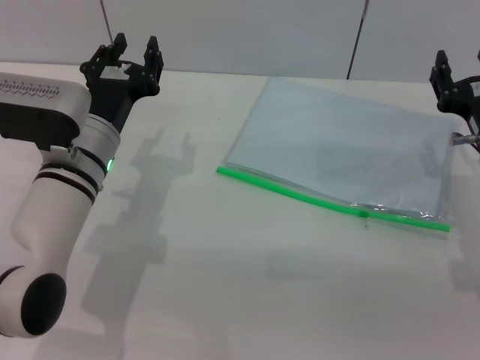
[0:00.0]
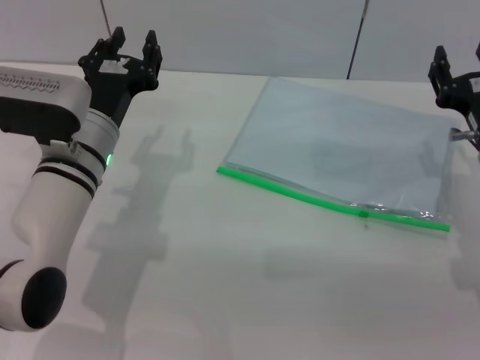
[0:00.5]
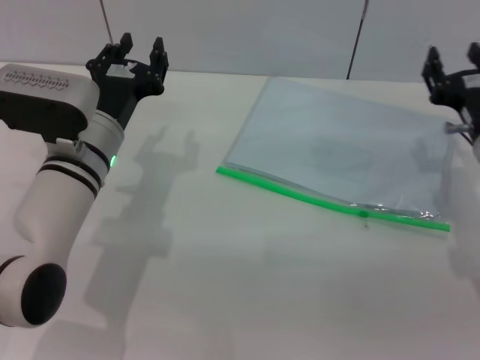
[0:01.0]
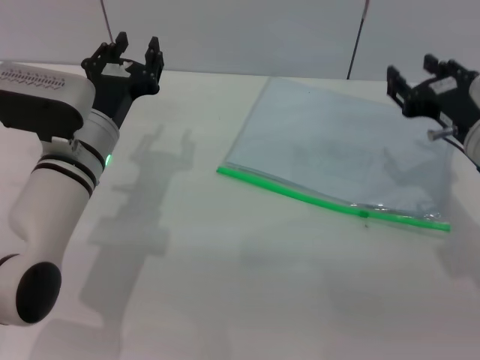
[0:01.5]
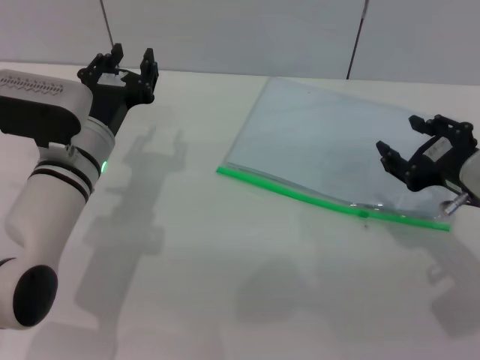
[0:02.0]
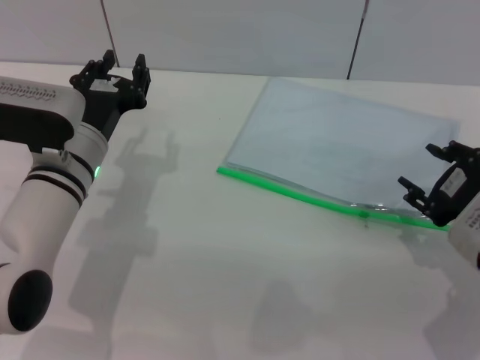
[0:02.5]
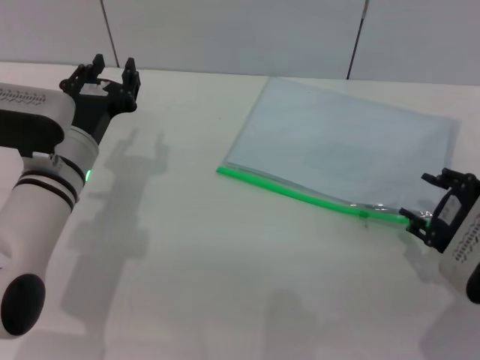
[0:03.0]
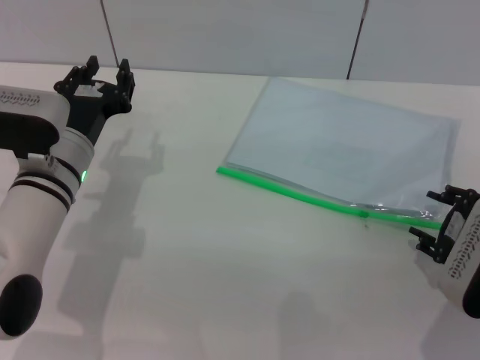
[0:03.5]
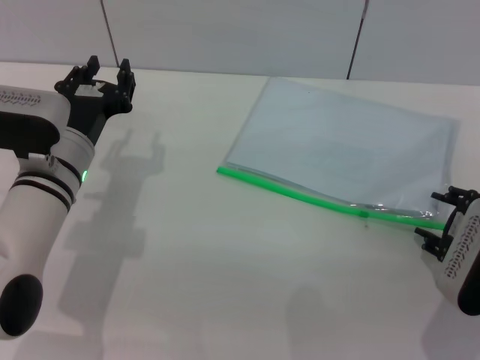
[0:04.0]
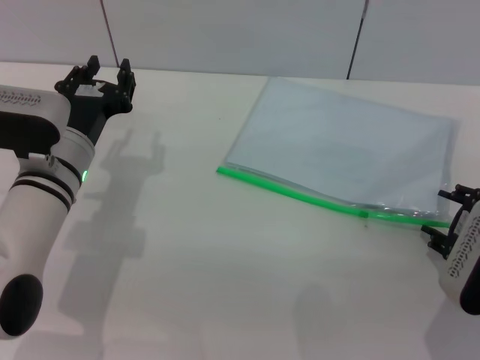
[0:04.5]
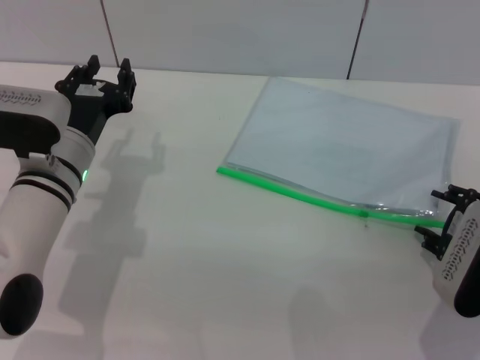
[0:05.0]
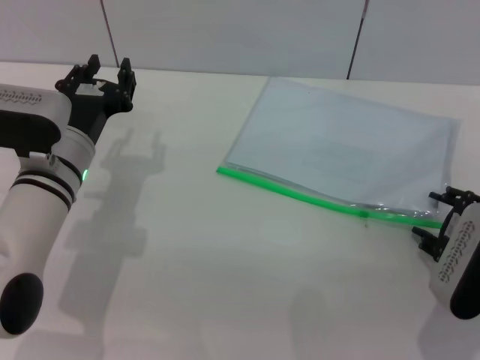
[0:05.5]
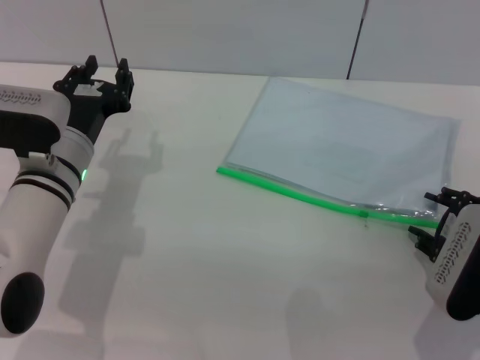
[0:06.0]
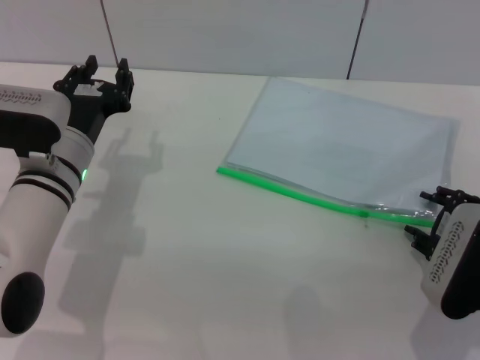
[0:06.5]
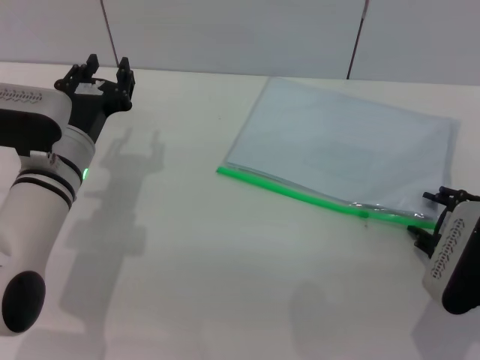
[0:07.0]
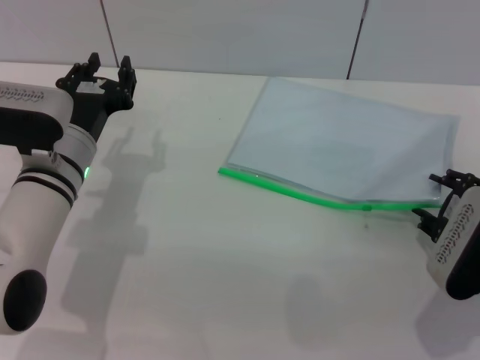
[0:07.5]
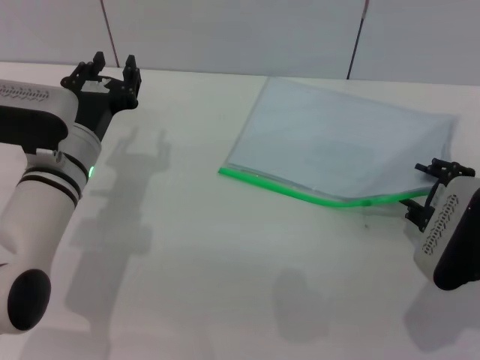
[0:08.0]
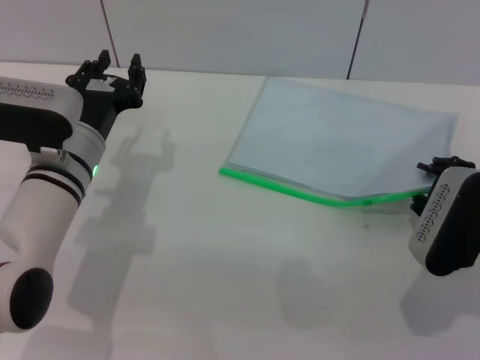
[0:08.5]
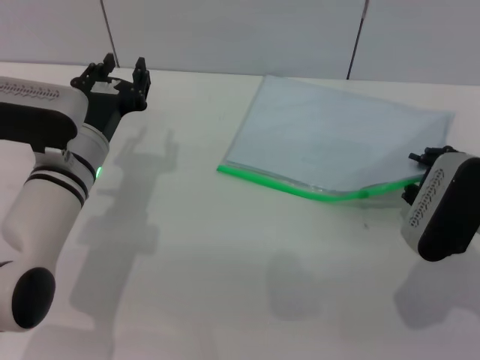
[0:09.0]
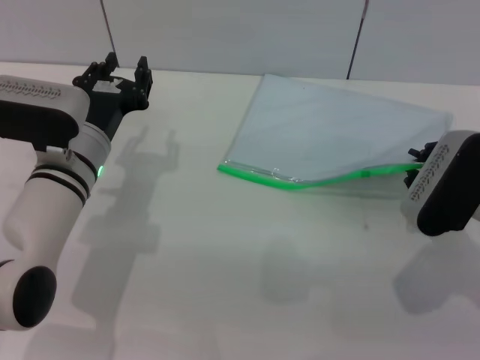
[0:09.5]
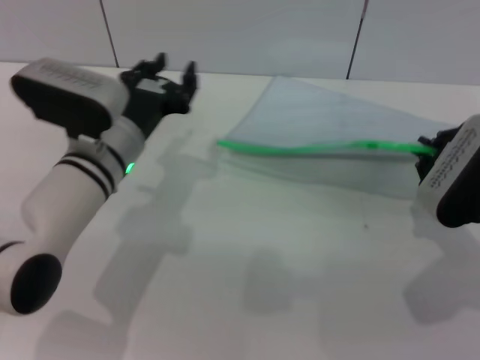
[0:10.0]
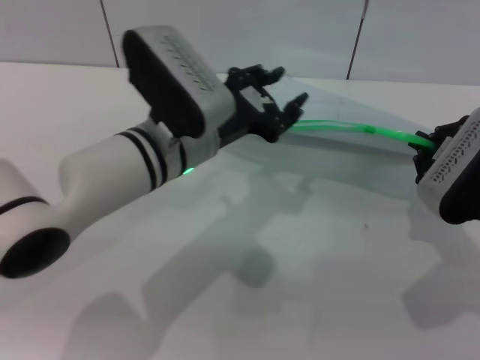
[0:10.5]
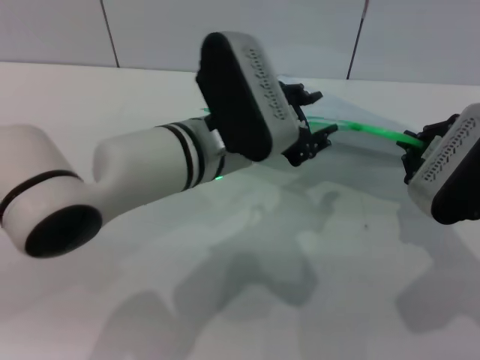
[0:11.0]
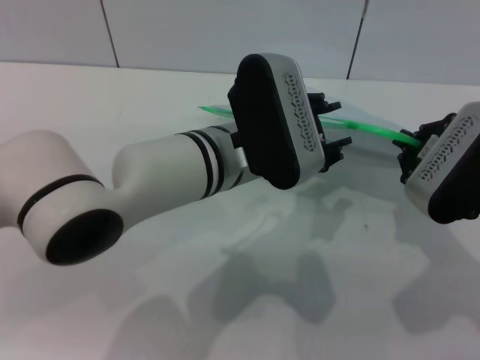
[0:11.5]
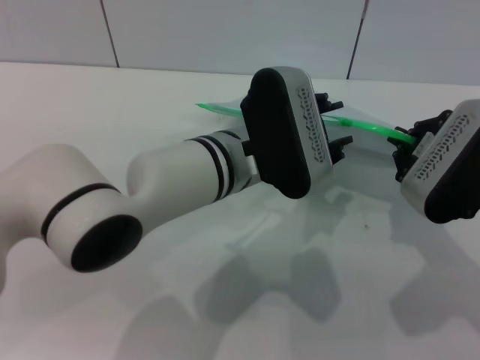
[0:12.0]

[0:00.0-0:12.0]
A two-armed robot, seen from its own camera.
Step, 0:00.0 to 0:09.5: Pick up the transparent plastic bag with the right gripper.
0:00.0 to 0:02.0: The right gripper moves approximately 5 cm.
0:04.0 to 0:06.0: Both grippers stay about where they are.
0:06.0 to 0:08.0: The grippers stay close to where they were, moving slightly.
0:08.0 to 0:10.0: The right gripper closes.
0:10.0 to 0:12.0: The left gripper heads to the right and upward, covering roughly 15 cm.

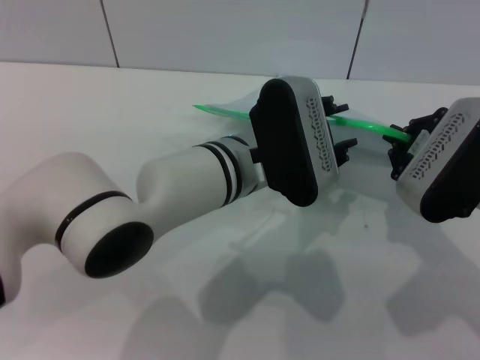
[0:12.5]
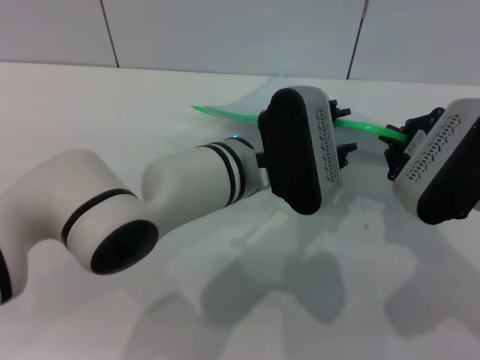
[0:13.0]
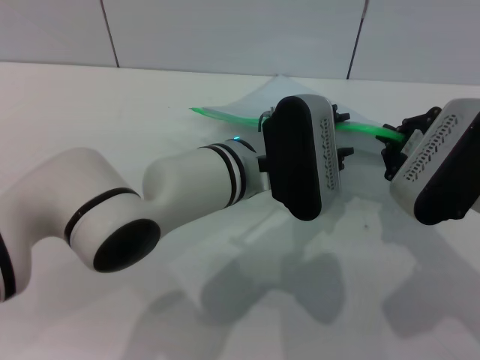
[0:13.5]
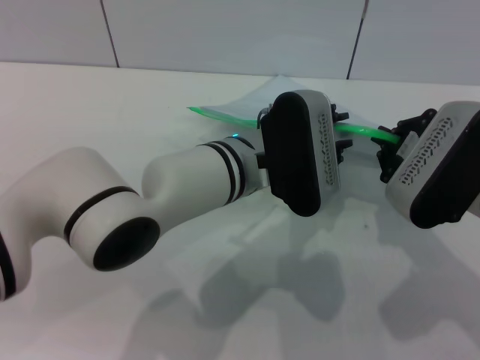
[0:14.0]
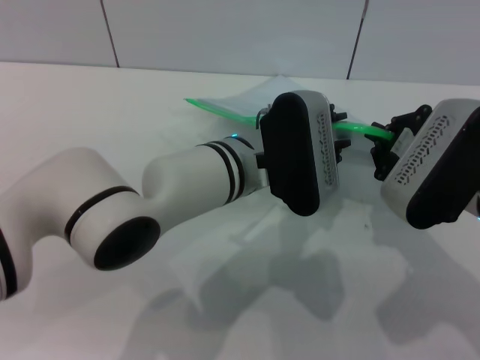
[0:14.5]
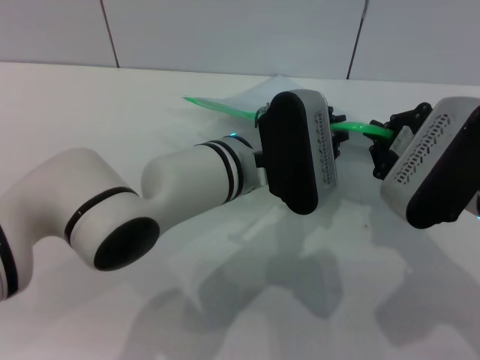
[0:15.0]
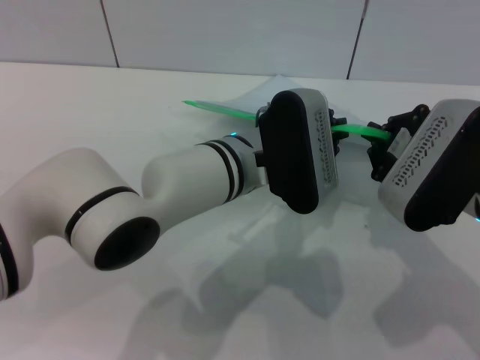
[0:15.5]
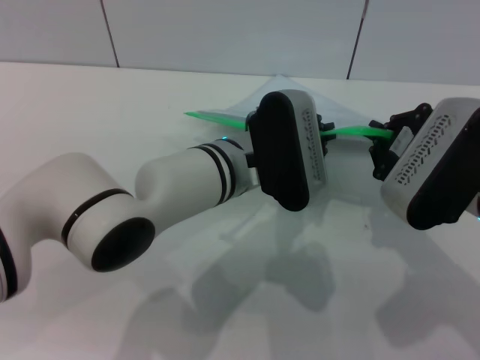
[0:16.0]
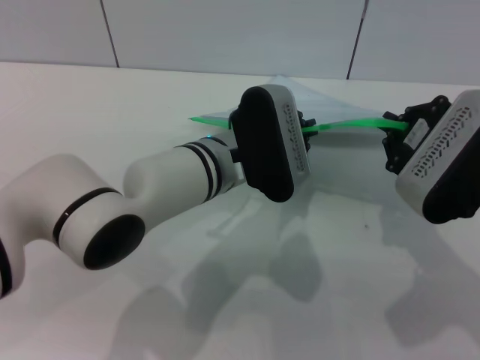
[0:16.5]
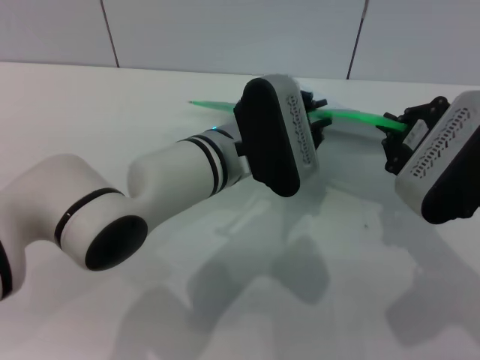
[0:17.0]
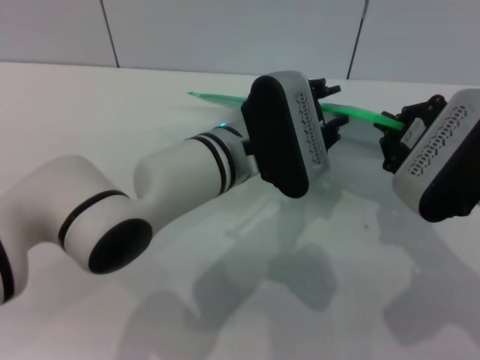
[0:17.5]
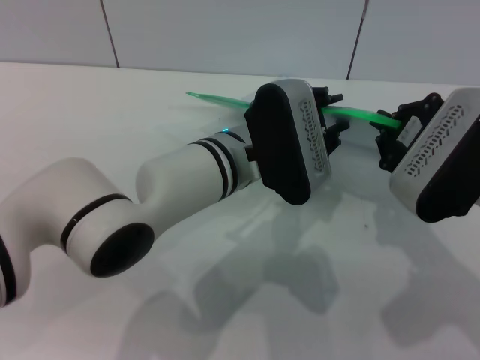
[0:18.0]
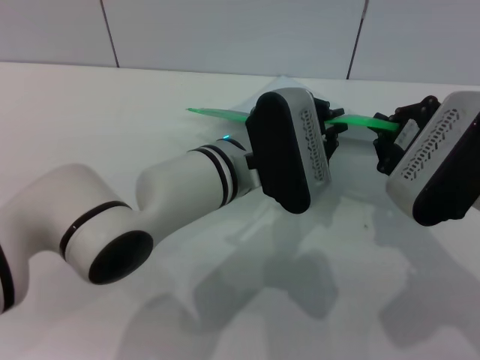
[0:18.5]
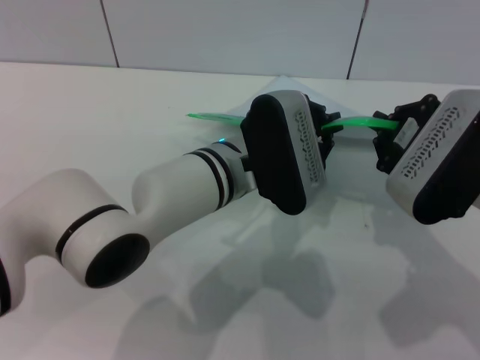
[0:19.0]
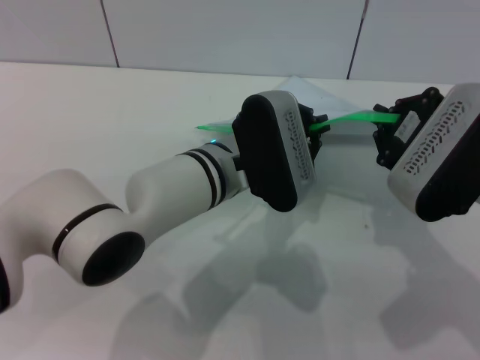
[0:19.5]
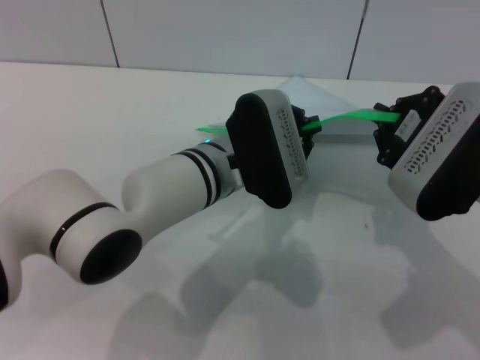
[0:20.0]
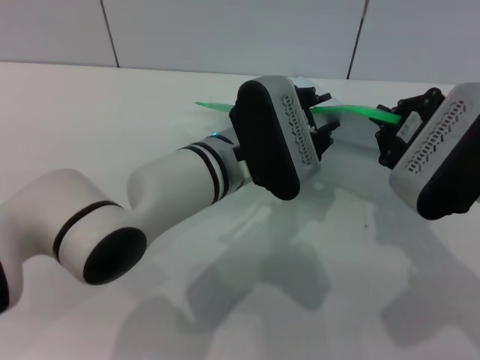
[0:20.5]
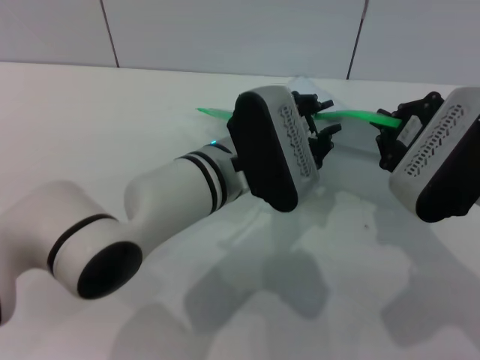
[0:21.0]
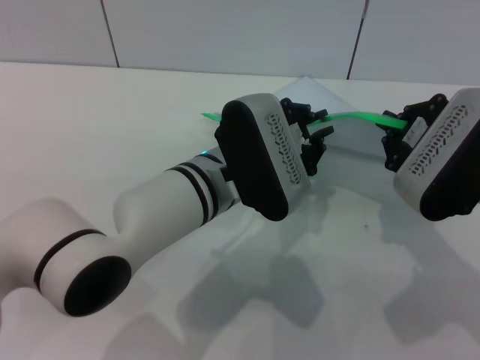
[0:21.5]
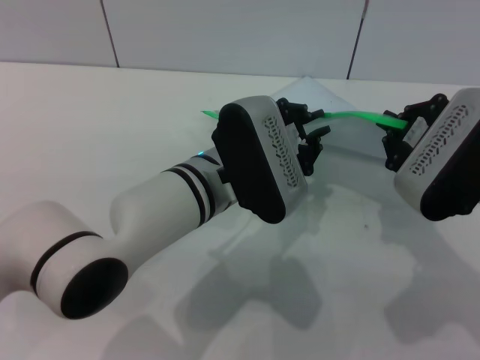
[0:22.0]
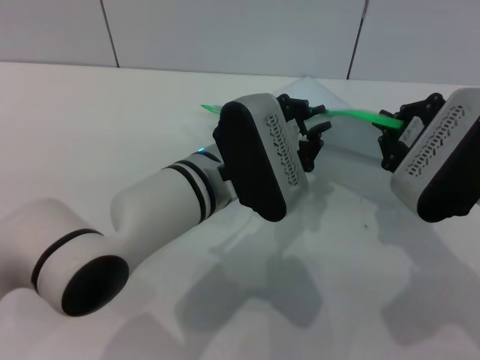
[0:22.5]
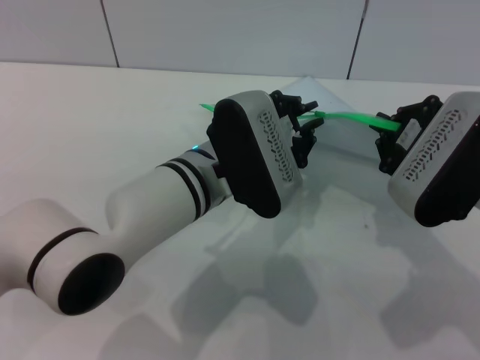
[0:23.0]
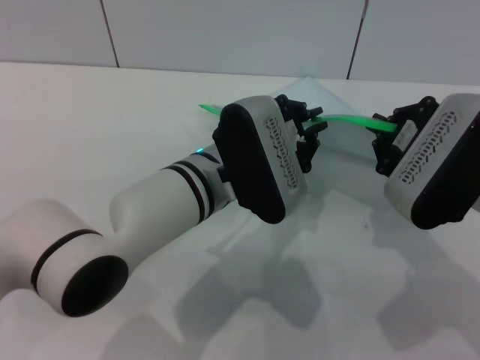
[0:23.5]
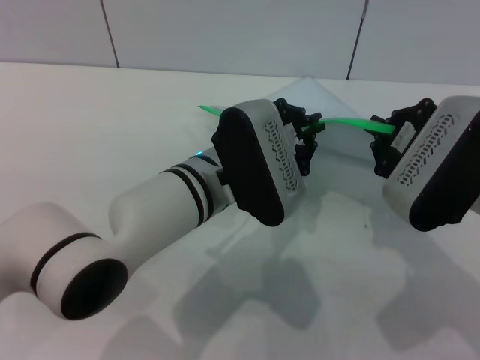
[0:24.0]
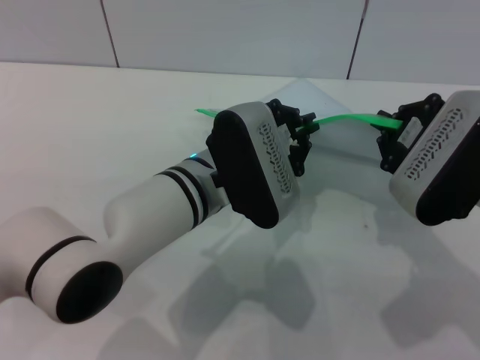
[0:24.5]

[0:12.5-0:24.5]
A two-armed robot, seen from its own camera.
0:12.5 to 0:14.5: The grippers make only small movements.
0:14.5 to 0:16.5: The left gripper closes its fingers.
0:16.5 to 0:18.5: The left gripper opens and closes again.
0:18.5 to 0:22.5: The grippers move only a little.
0:22.5 to 0:24.5: The two grippers keep their place.

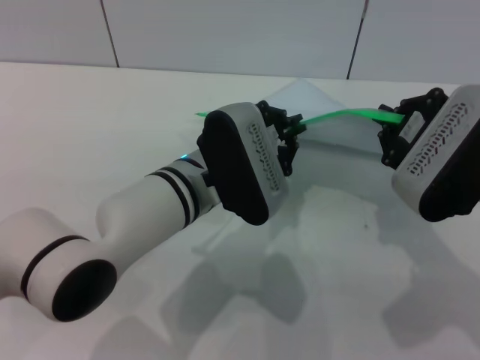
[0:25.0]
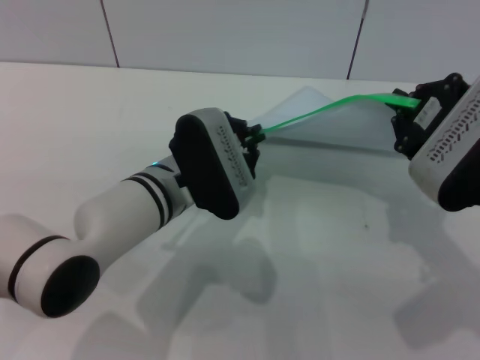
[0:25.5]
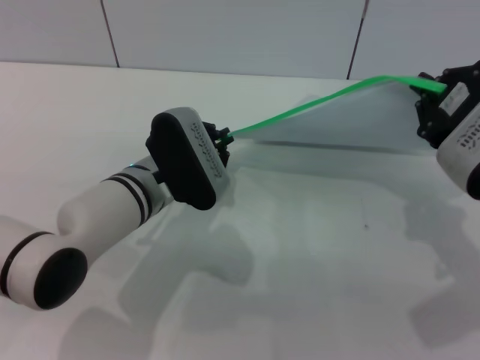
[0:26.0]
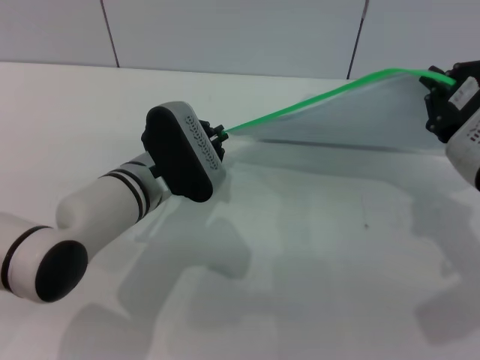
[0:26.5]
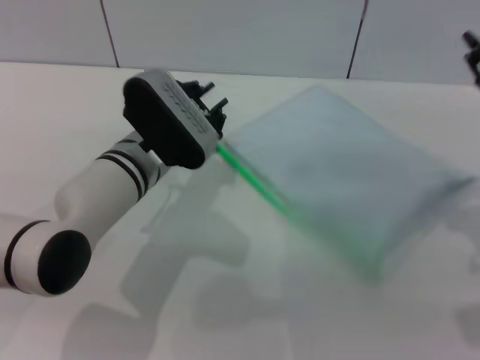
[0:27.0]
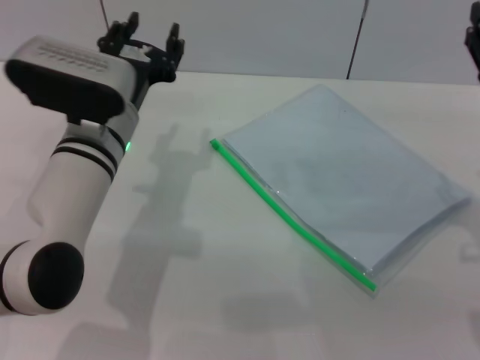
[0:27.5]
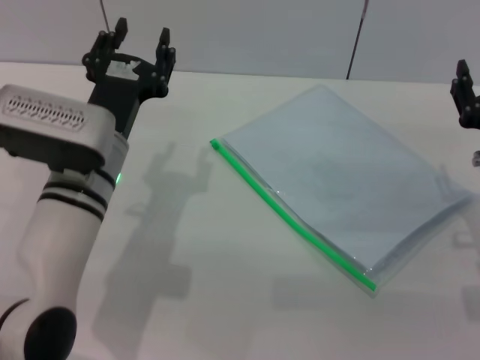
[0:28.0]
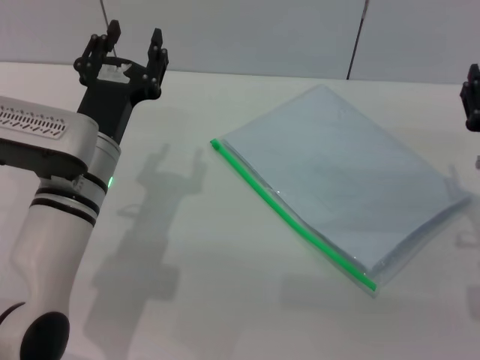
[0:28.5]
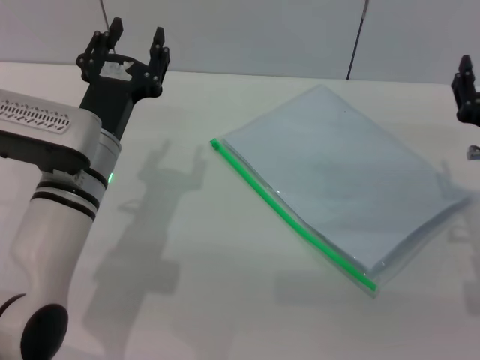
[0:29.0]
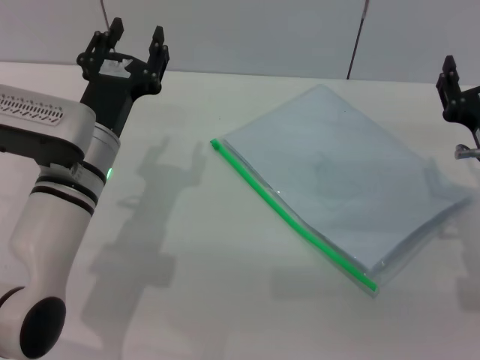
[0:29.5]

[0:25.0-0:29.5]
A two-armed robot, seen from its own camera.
Step, 0:27.5 to 0:28.0: Place the transparent plastic bag.
0:25.0 to 0:27.0: The left gripper is displaced to the left by roughly 5 cm, while the right gripper travels to the right by some 5 cm.
0:27.0 to 0:29.5: The right gripper travels downward by roughly 15 cm, and opens its fingers, while the left gripper shifts by about 5 cm, and opens up.
